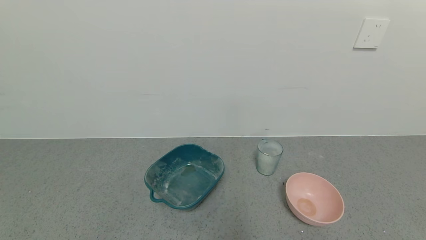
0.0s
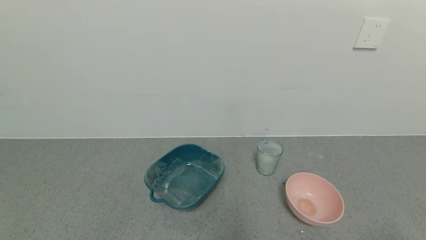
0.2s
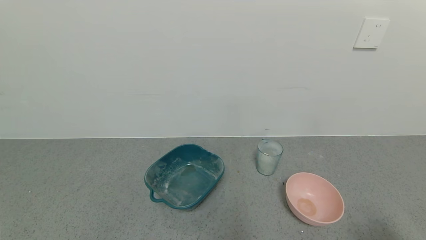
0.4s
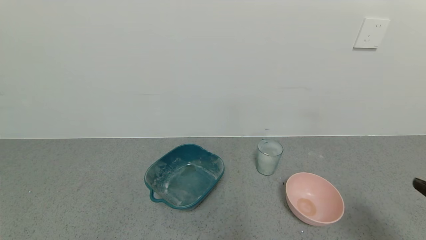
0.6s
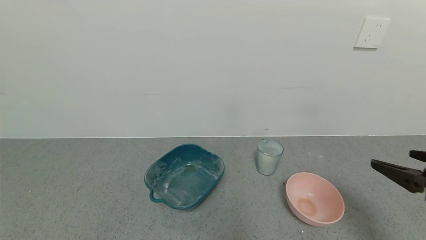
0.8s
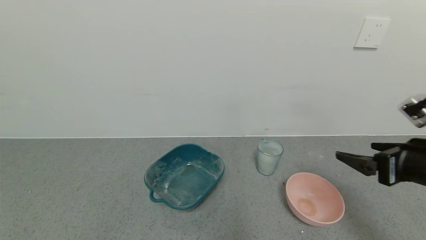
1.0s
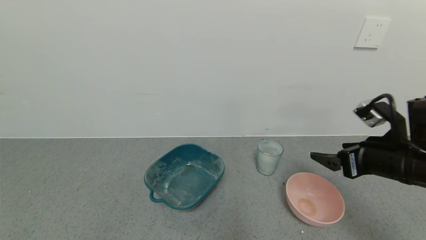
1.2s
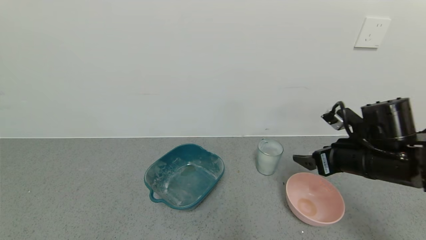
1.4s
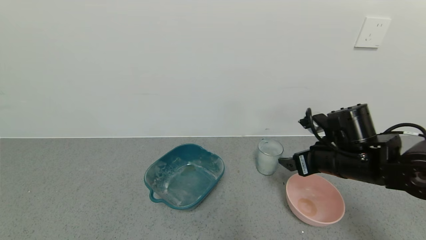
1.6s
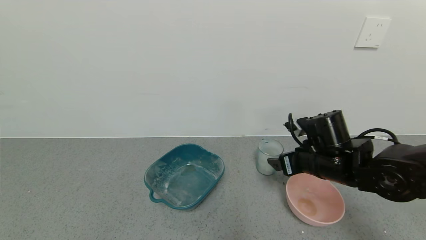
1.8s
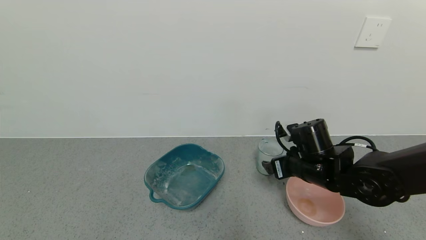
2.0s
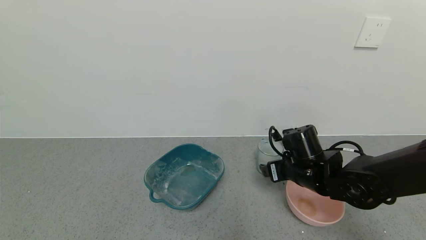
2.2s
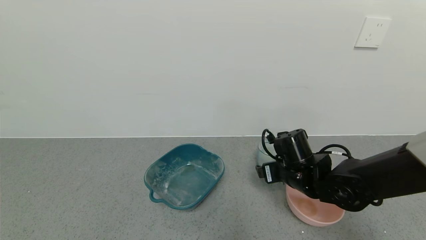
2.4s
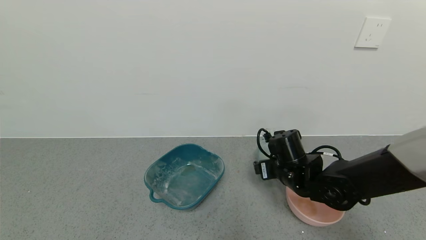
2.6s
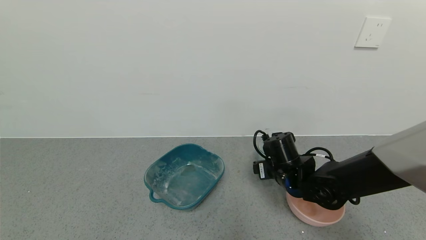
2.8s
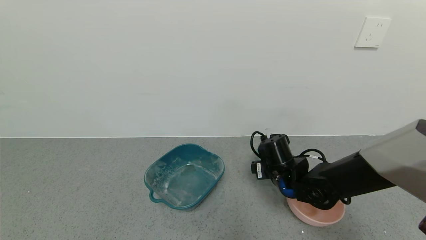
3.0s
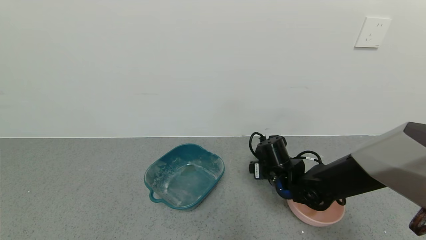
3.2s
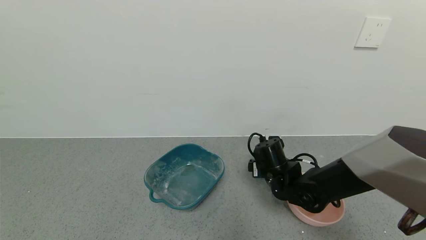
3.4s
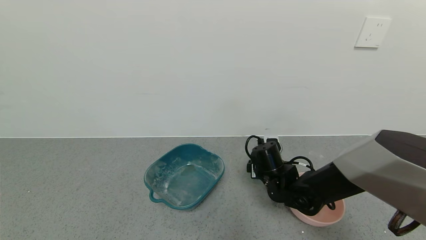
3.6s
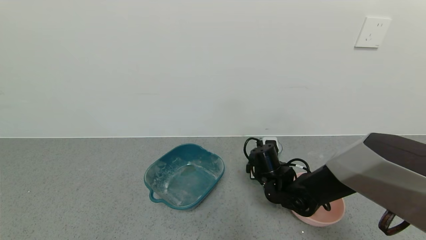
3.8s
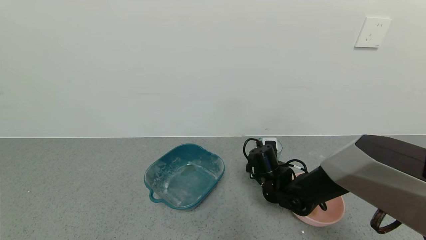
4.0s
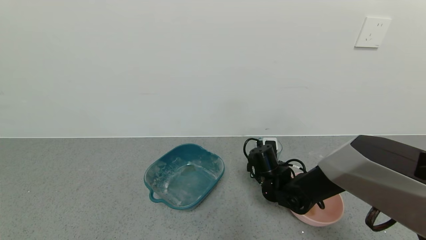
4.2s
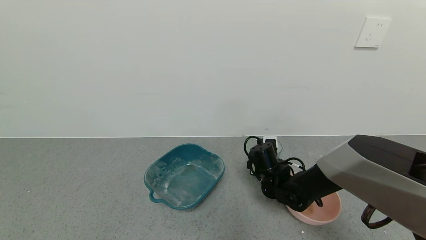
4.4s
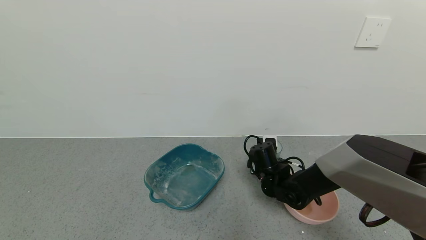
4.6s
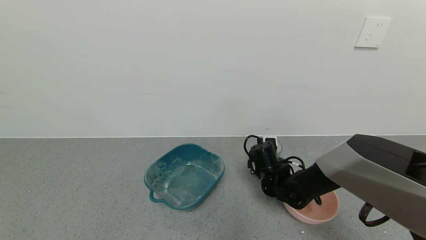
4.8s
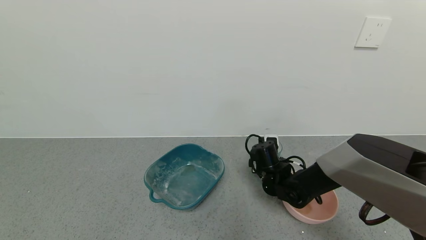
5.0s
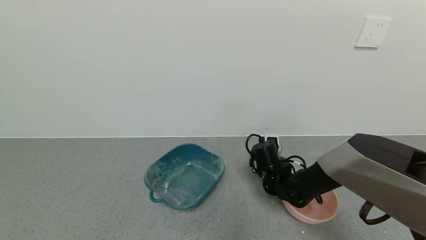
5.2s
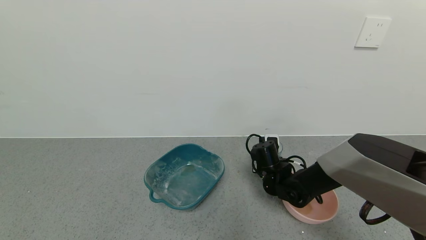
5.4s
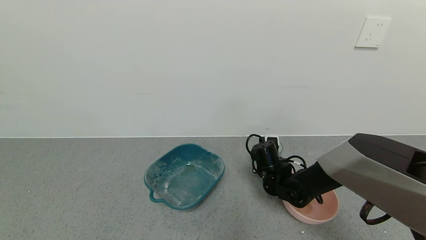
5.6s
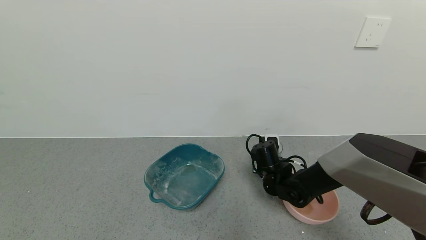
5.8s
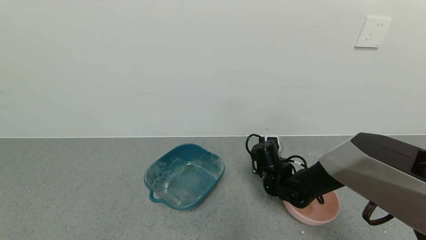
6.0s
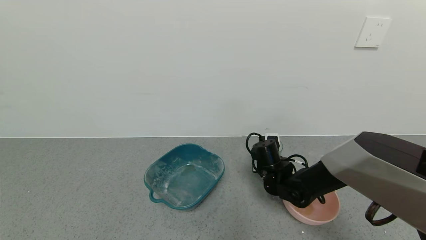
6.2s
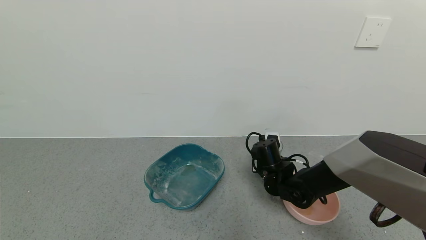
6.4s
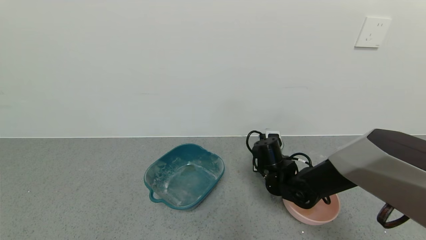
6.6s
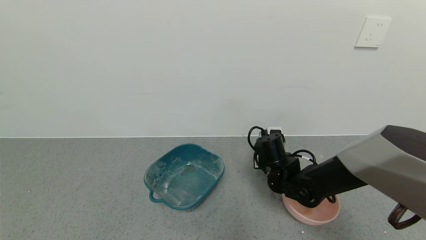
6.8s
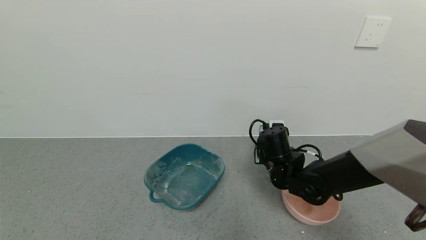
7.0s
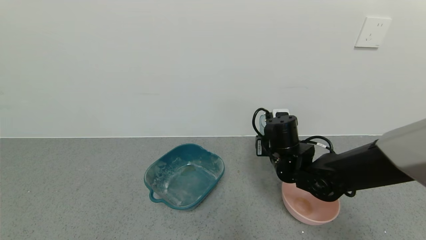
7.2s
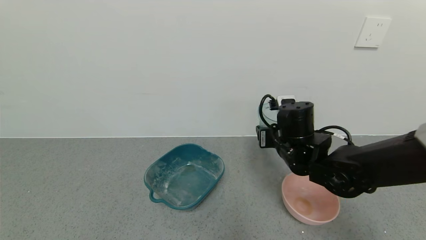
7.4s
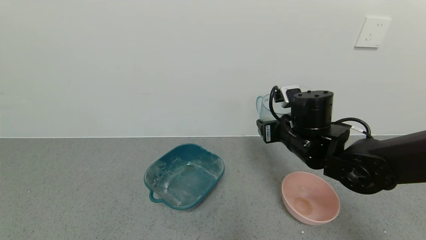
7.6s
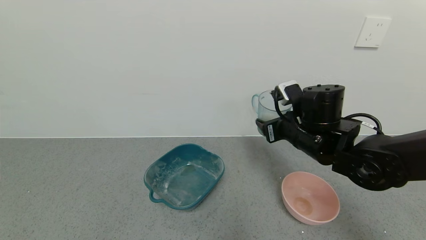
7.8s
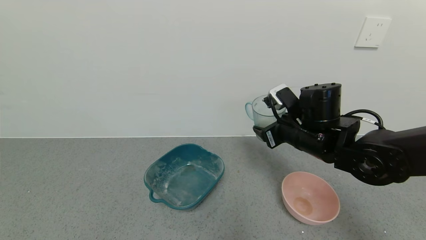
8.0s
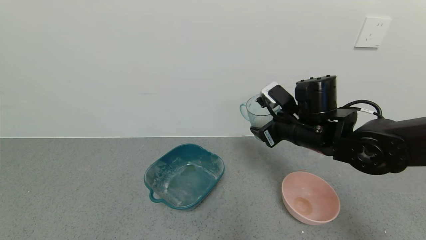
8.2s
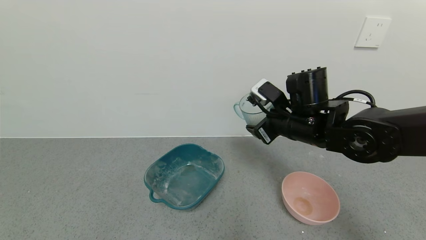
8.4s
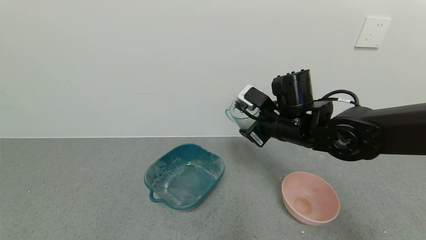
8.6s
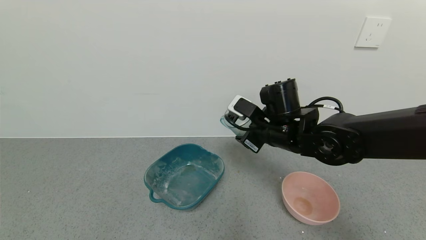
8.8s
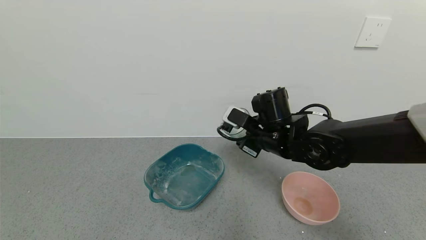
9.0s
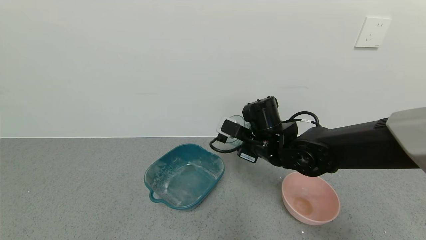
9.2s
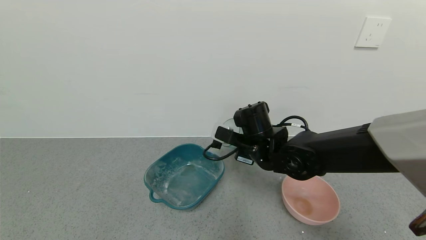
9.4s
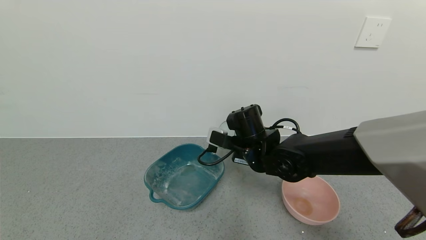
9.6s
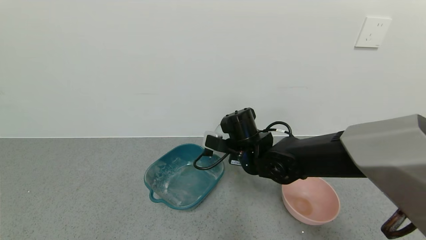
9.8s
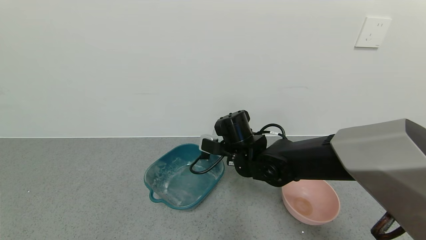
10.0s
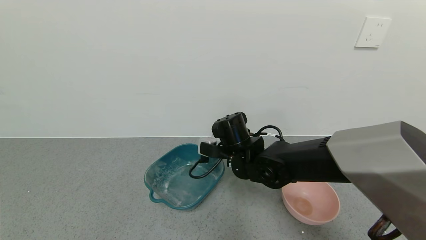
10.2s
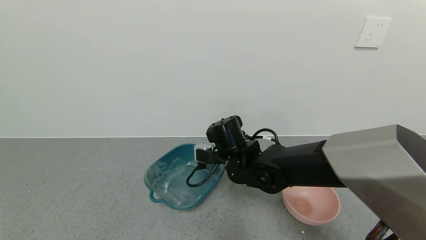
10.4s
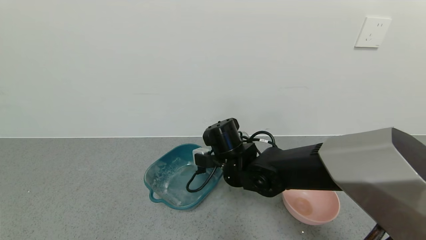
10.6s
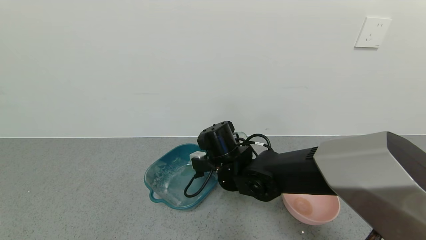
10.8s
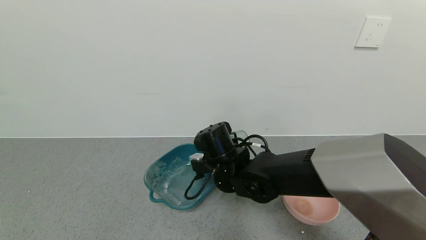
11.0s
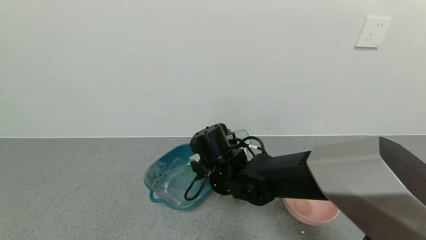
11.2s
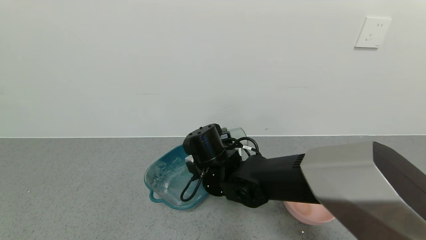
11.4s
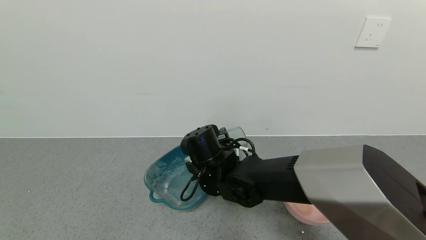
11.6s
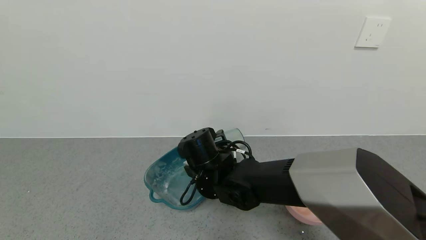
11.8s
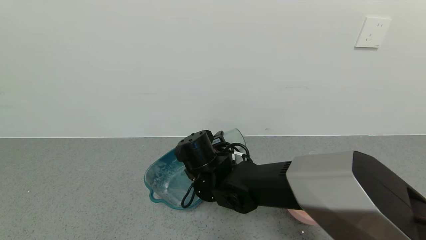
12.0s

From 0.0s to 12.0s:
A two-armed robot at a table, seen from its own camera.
Task of the whole recording: use a gripper to pick up the cup and pour the powder into a bowl or tray.
Step, from 0.0s to 5.4s: Grasp the glass of powder with the right gripper.
From 0.0s to 1.6s: The right gripper is displaced forward and to the left by approximately 35 cm.
From 1.6s to 3.0s: The right gripper heads to the left and downward, covering about 10 cm.
From 3.0s to 4.4s: The right gripper changes place by approximately 5 cm.
From 4.4s to 6.0s: The right gripper closes.
From 6.0s to 7.6s: The right gripper travels upward by about 15 cm.
From 7.6s to 9.0s: The right gripper heads to the left, covering approximately 5 cm.
From 9.0s to 10.4s: The right gripper moves to the left and downward, roughly 10 cm.
From 10.4s to 12.0s: The right gripper goes about 5 cm to the left.

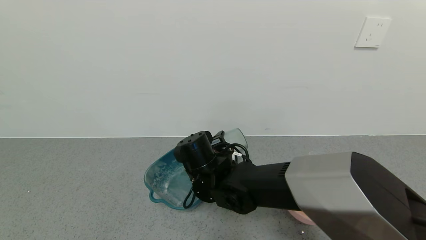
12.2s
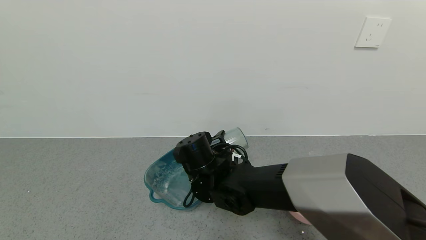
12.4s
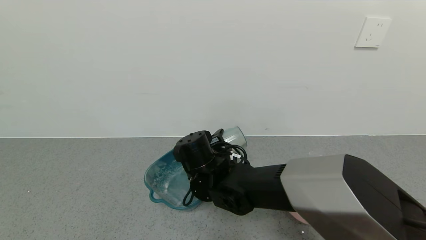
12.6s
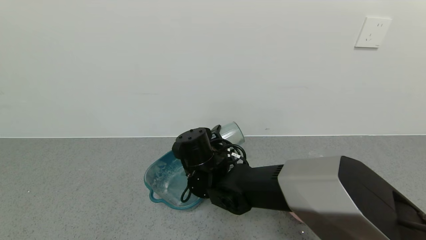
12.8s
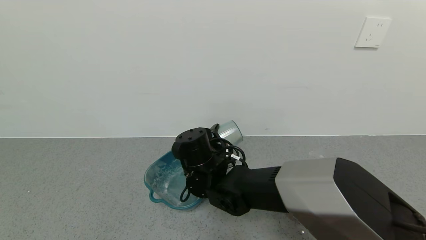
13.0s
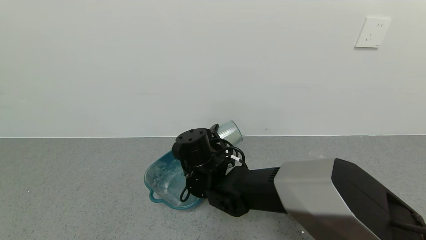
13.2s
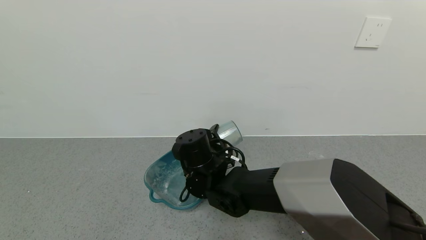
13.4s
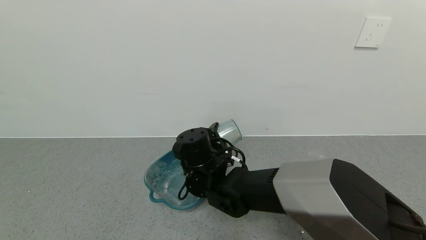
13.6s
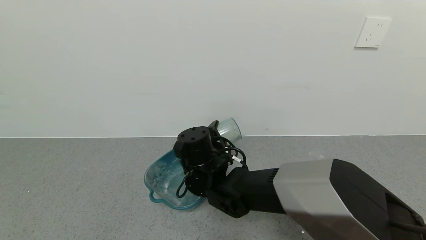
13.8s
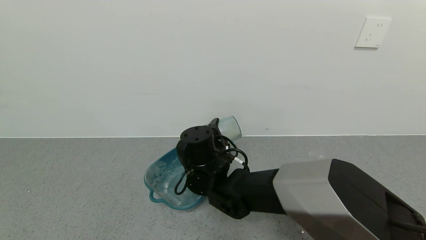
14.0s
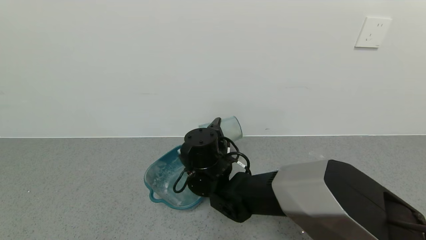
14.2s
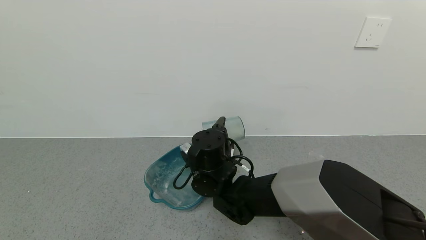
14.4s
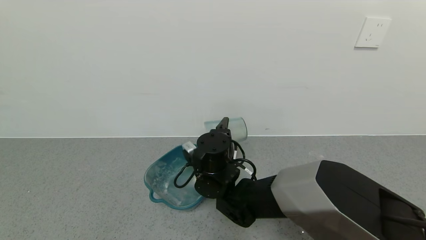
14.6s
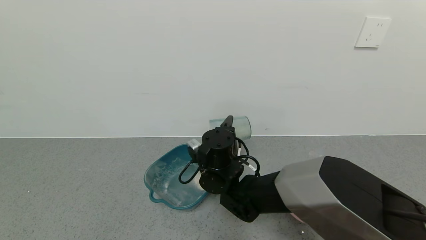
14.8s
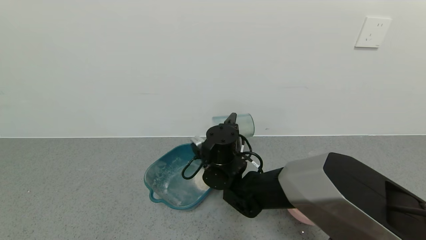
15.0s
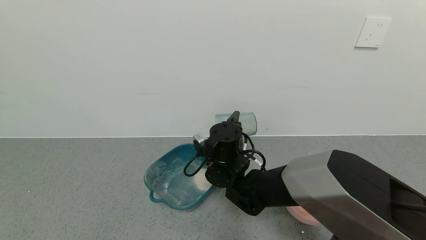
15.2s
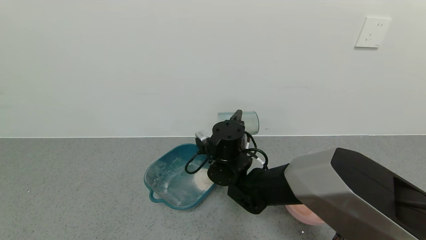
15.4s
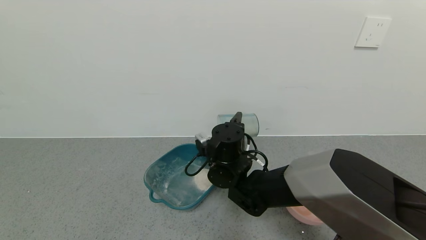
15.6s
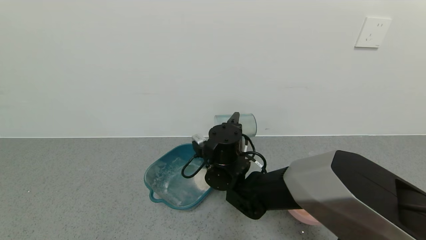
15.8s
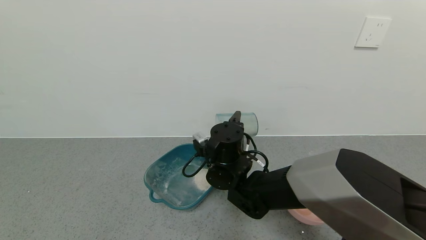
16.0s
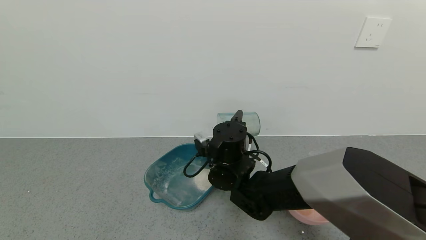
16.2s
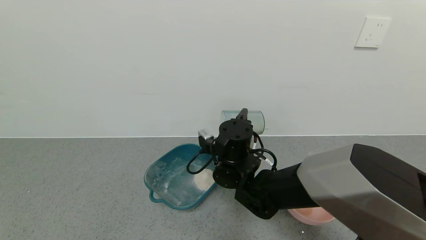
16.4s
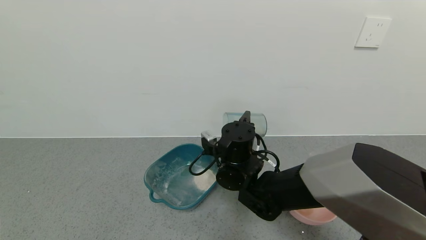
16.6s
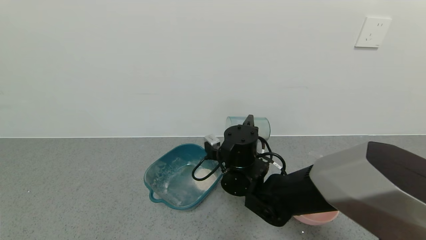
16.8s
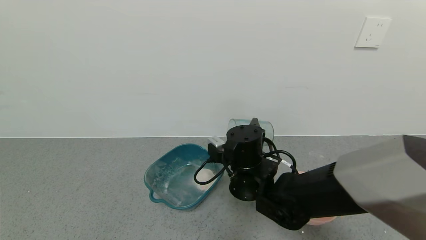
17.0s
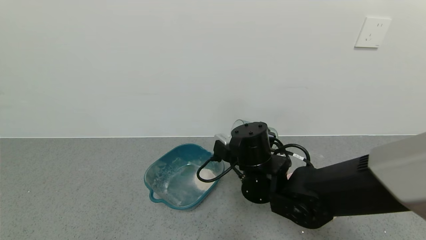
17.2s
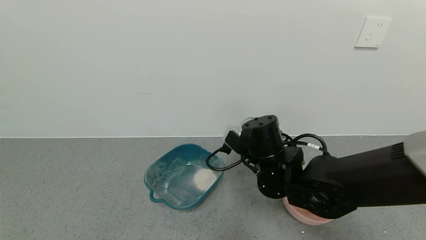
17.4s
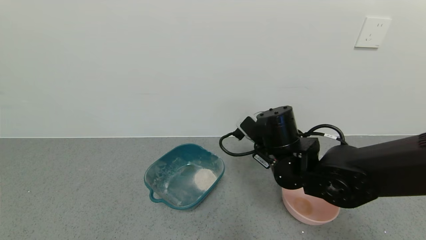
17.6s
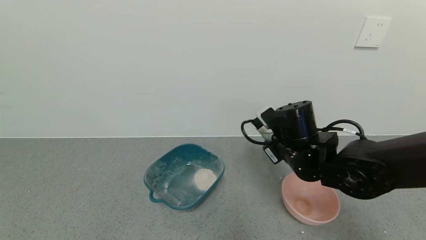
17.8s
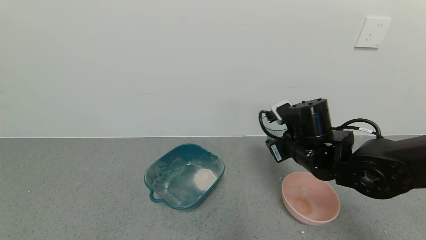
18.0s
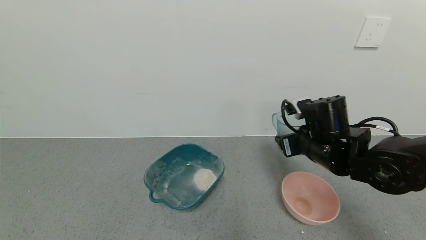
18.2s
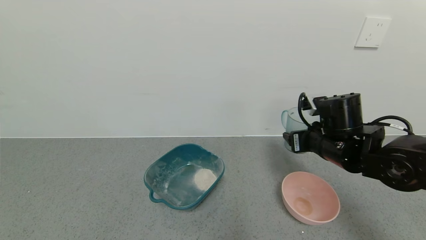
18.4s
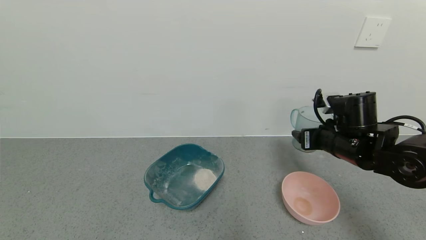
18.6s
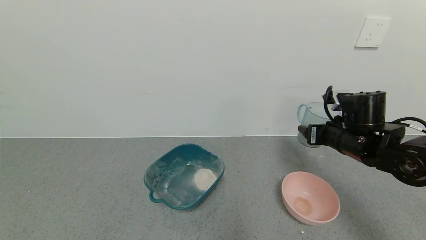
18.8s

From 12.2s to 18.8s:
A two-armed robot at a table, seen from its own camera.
Task of the whole recording: use a gripper to pick up the cup and pour the powder into a bowl or tray.
Step, from 12.2s to 14.6s: Pour the powder into the pink bowl with the right gripper.
From 12.2s to 13.8s: The grippers stay close to where they were, moving slightly.
From 15.4s to 17.2s: The right gripper is displaced to the right and backward by some 10 cm.
From 17.2s to 18.8s: The right gripper travels to the right by about 20 cm.
